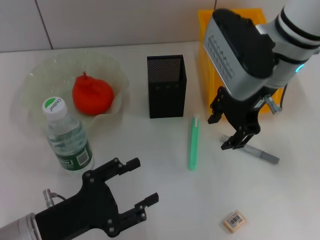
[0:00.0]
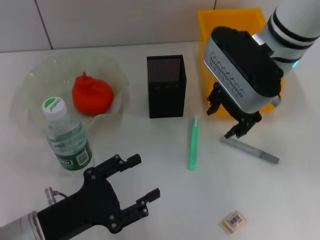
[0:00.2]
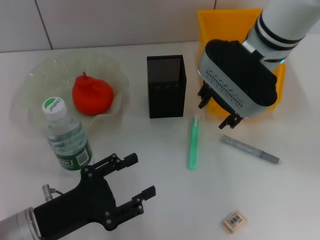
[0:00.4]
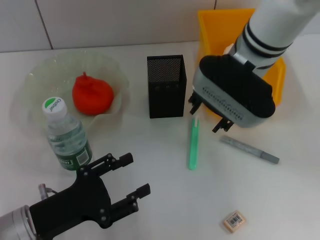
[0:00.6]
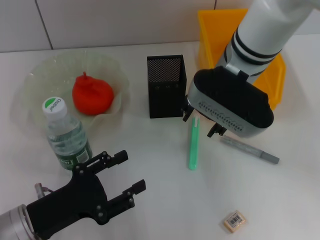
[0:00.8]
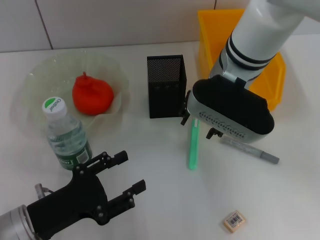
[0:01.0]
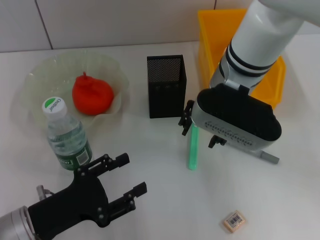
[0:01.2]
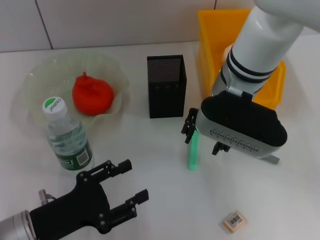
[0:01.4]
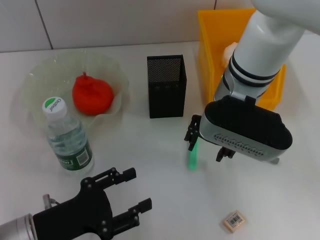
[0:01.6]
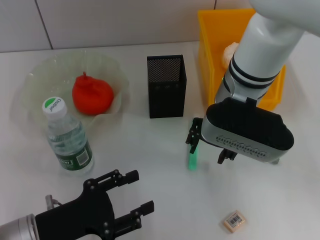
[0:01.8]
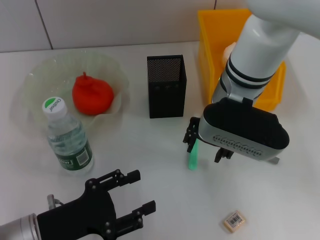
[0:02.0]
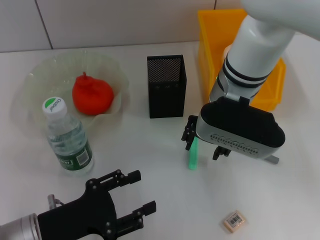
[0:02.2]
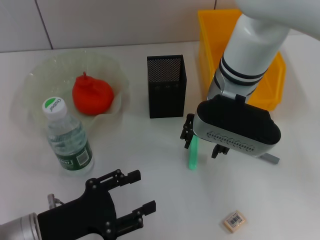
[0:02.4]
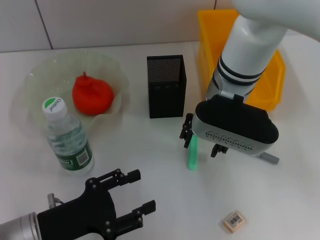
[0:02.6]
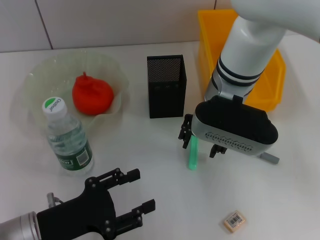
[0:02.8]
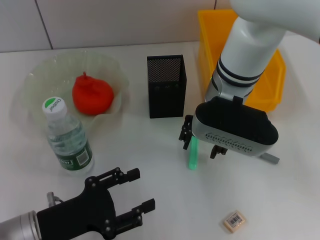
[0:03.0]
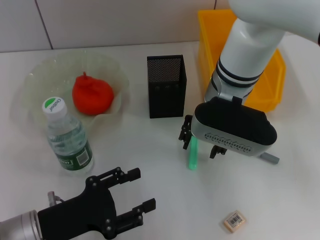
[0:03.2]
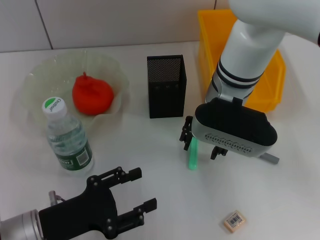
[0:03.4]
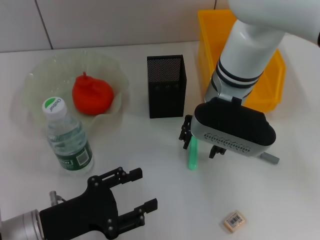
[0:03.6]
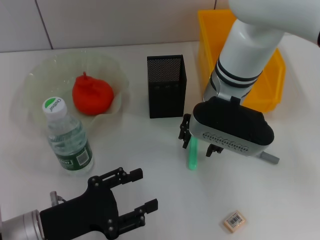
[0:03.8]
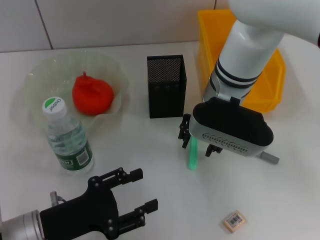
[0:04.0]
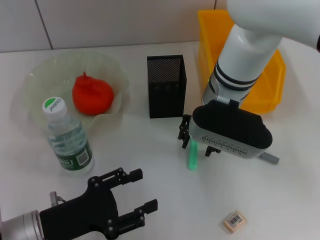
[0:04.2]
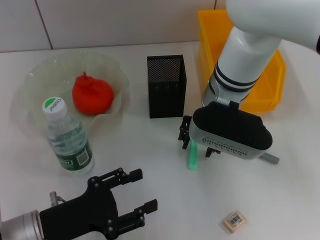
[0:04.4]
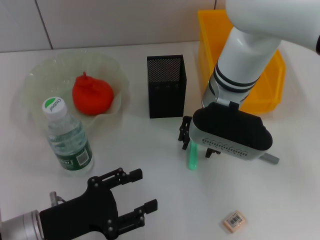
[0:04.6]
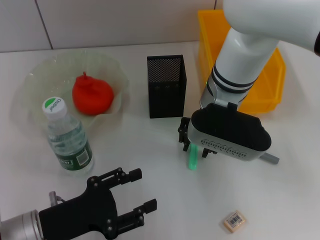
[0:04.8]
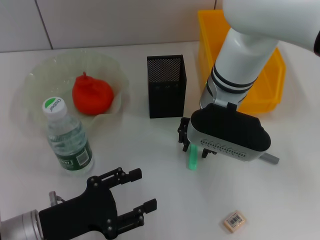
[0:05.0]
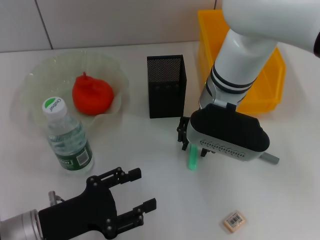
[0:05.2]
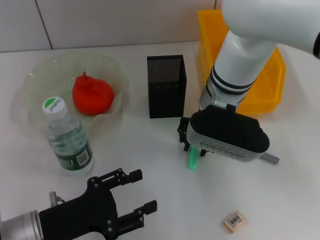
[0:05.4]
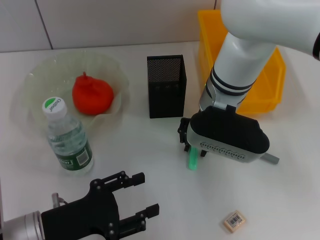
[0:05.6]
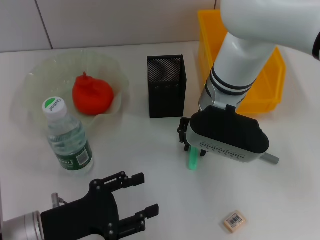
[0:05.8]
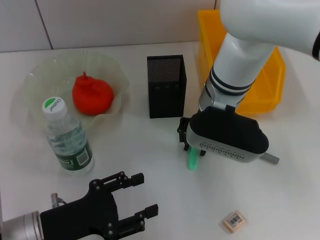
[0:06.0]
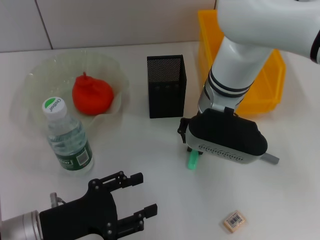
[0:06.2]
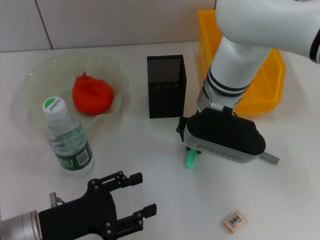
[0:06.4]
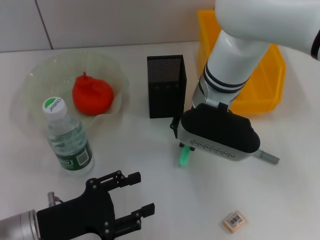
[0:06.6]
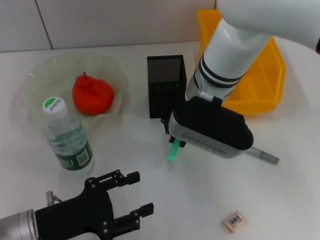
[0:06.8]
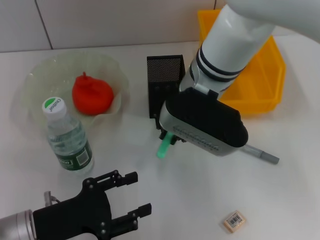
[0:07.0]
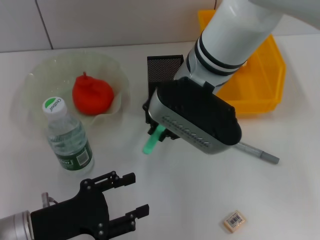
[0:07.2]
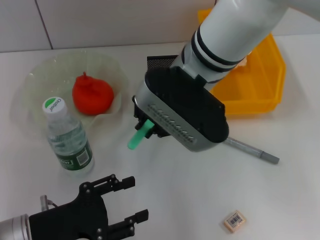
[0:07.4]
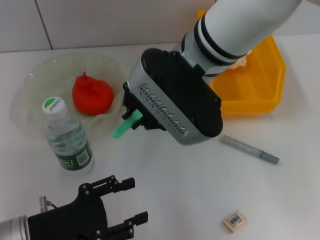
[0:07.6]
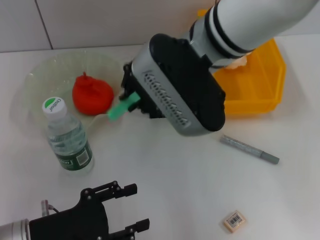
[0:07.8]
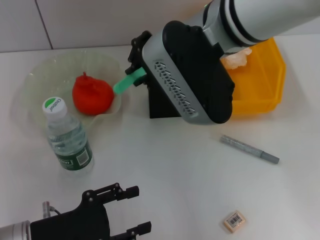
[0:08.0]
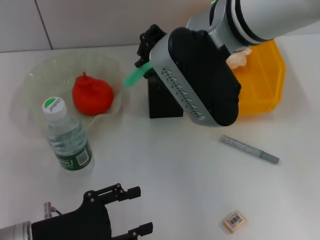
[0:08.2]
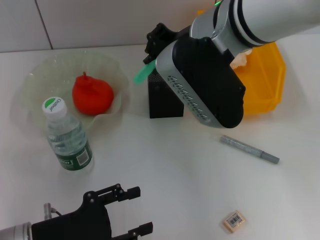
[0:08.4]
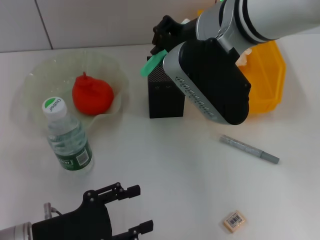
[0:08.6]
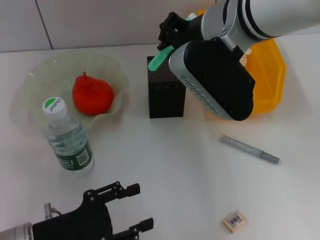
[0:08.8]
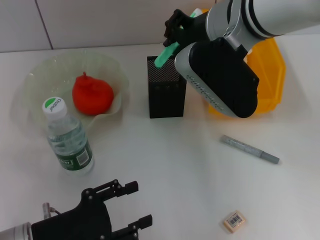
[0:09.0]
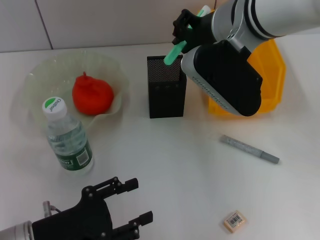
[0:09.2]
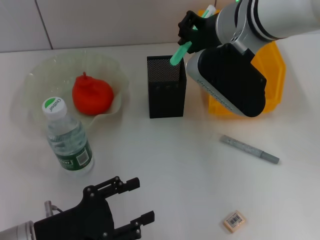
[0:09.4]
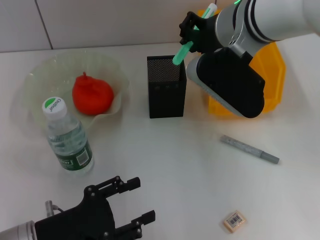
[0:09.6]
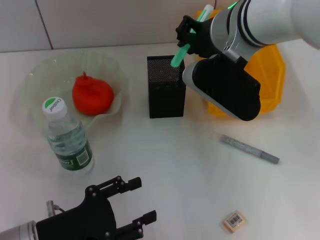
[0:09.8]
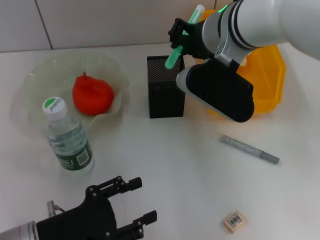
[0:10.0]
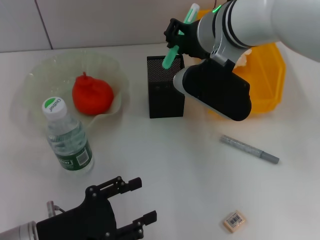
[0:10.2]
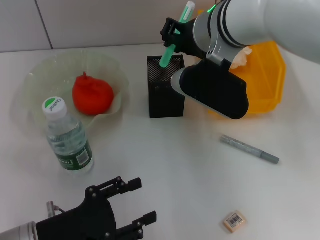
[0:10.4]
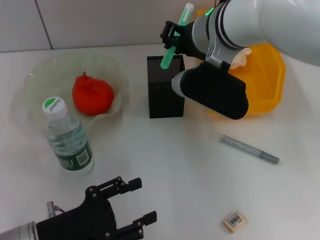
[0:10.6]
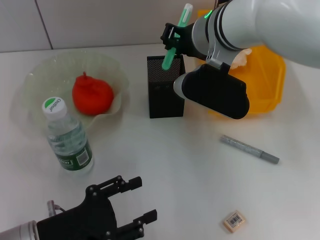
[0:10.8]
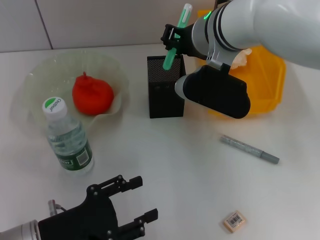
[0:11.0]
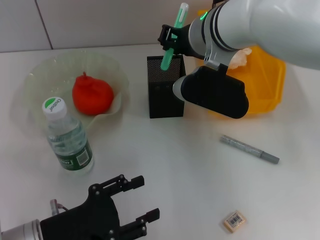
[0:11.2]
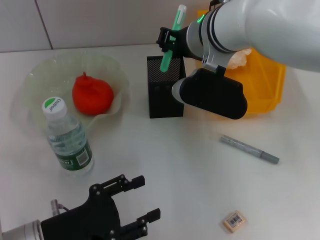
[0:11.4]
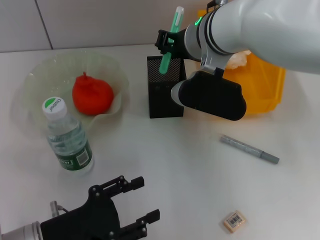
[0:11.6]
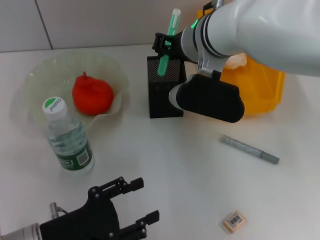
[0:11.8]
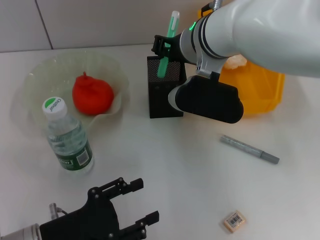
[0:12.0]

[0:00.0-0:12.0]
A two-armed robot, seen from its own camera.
Step, 0:00.0 to 0:06.2: Grab the blue utility knife with the right hand.
0:00.0 to 0:01.6: The right gripper moves approximately 5 cm.
0:01.6 to 0:03.0: The grippers move only a little.
0:03.0 to 0:04.4: Both grippers stay about where they are.
0:04.4 to 0:06.0: The two grippers keep their place.
0:06.0 to 0:07.6: The right gripper goes approximately 10 cm upward.
0:07.6 to 0:09.0: The right gripper moves about 5 cm.
0:09.0 to 0:10.4: The grippers stay close to where they were, moving slightly.
0:10.4 to 0:12.0: The grippers make only small movements.

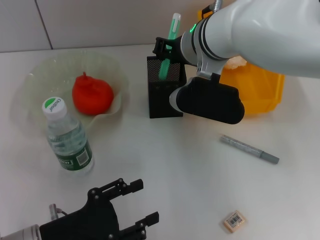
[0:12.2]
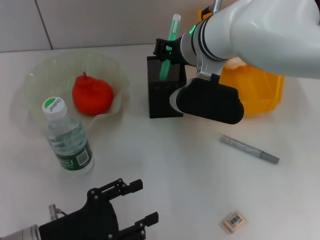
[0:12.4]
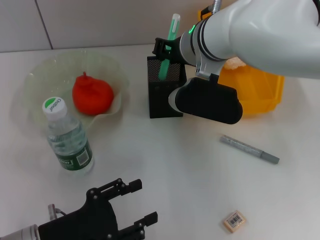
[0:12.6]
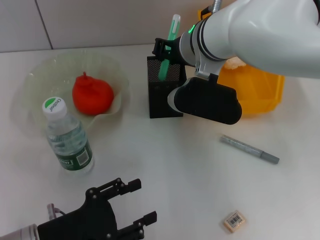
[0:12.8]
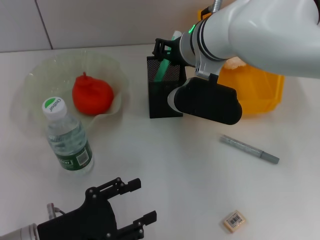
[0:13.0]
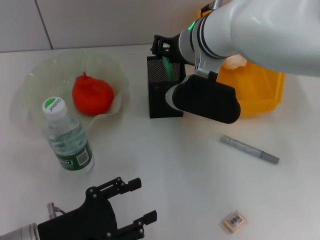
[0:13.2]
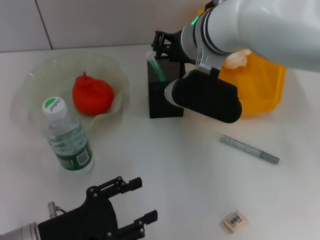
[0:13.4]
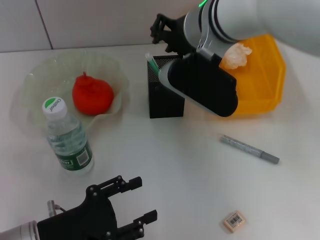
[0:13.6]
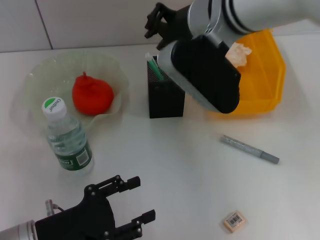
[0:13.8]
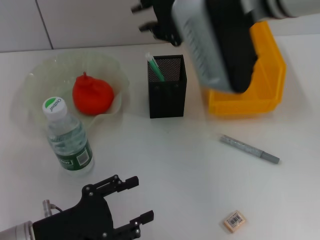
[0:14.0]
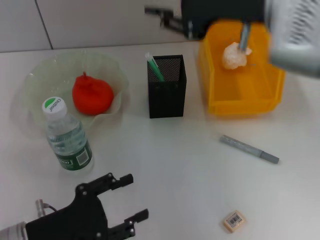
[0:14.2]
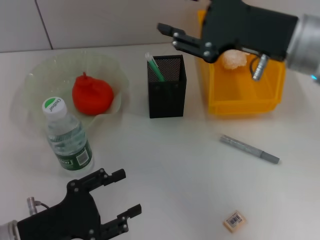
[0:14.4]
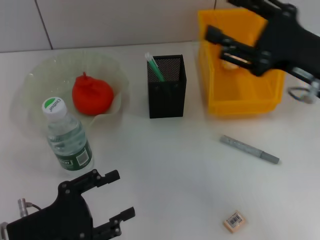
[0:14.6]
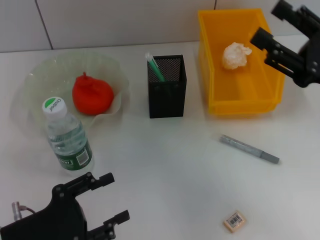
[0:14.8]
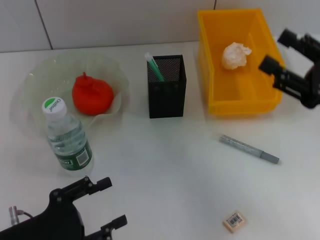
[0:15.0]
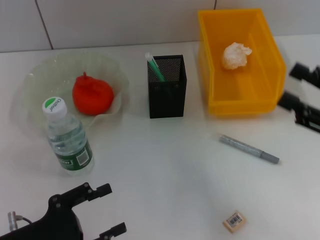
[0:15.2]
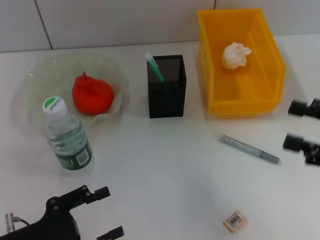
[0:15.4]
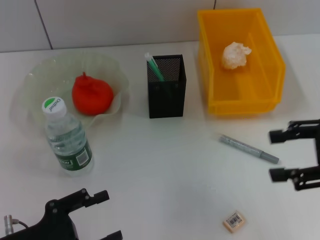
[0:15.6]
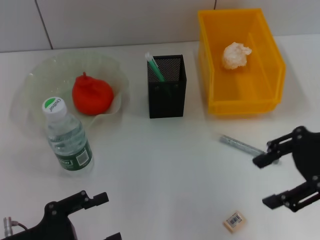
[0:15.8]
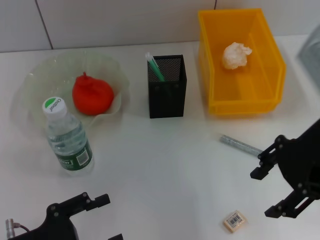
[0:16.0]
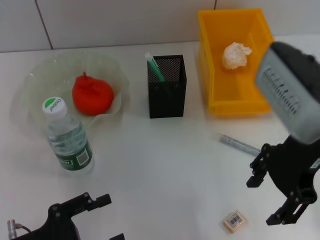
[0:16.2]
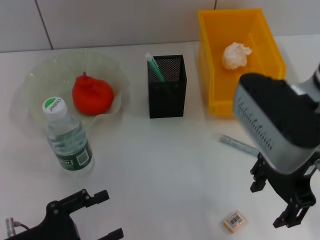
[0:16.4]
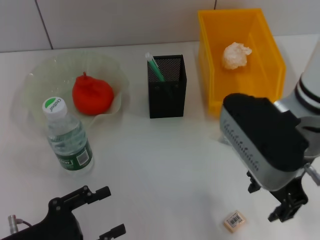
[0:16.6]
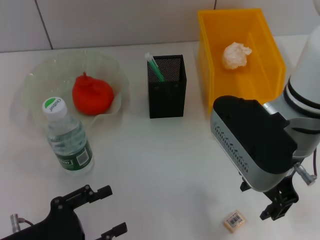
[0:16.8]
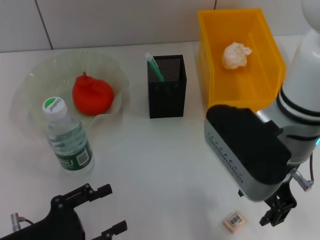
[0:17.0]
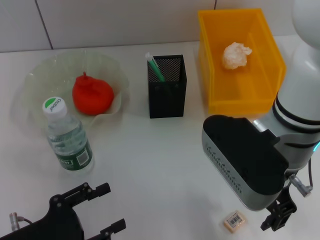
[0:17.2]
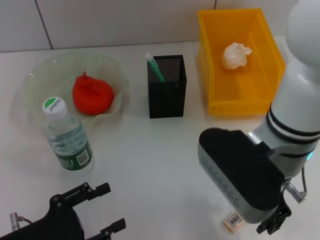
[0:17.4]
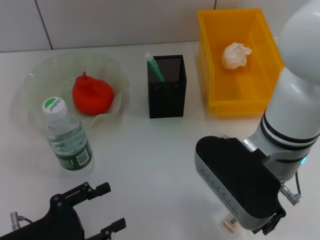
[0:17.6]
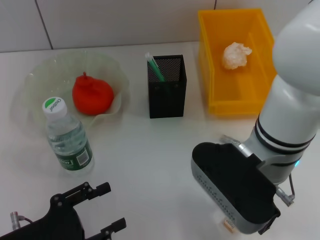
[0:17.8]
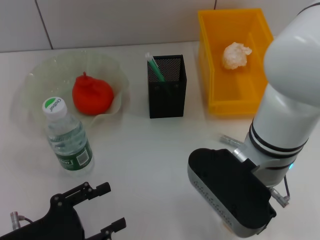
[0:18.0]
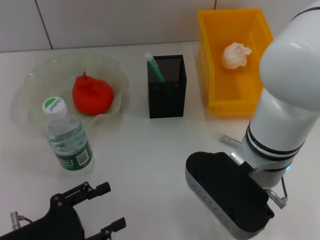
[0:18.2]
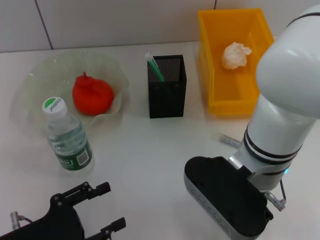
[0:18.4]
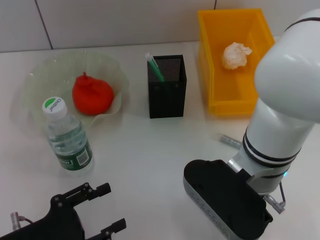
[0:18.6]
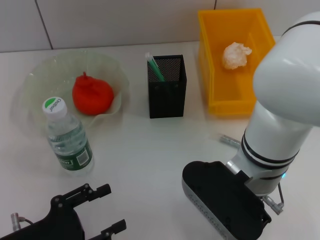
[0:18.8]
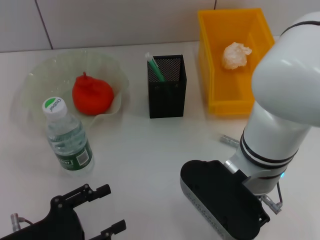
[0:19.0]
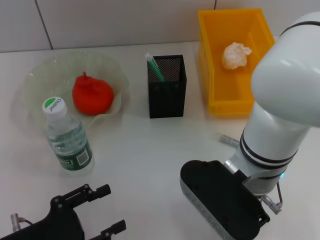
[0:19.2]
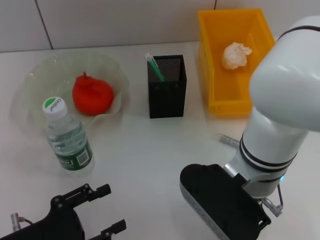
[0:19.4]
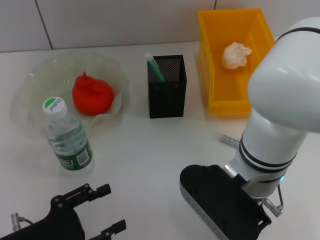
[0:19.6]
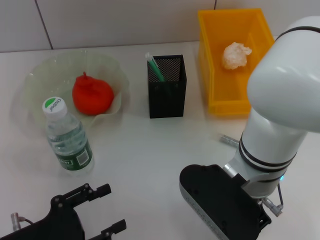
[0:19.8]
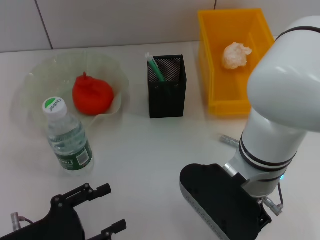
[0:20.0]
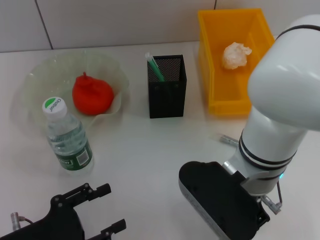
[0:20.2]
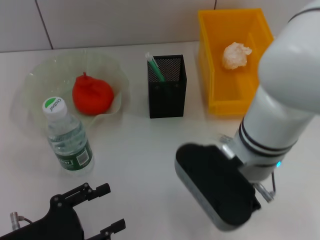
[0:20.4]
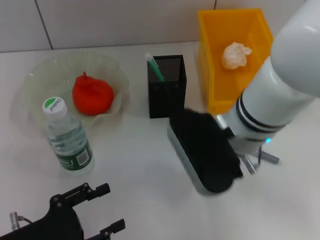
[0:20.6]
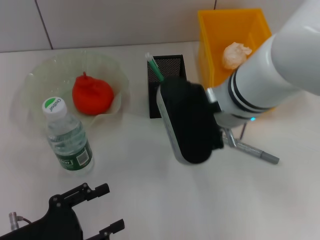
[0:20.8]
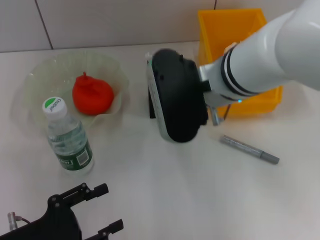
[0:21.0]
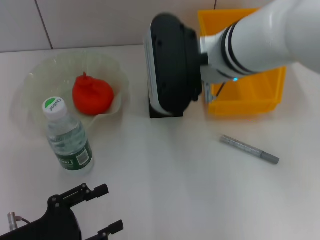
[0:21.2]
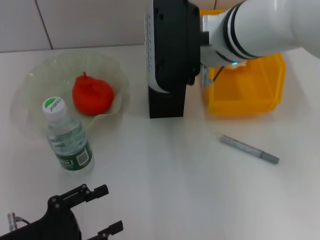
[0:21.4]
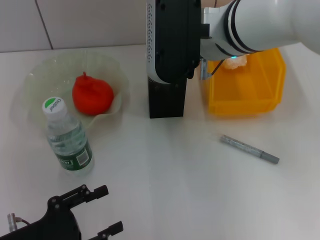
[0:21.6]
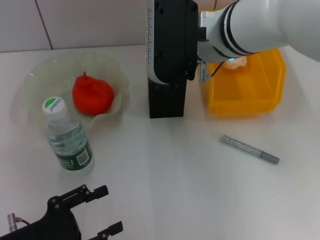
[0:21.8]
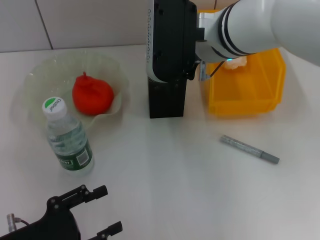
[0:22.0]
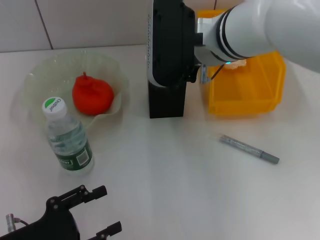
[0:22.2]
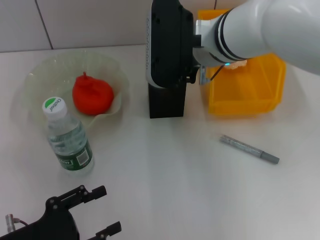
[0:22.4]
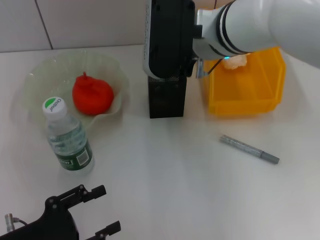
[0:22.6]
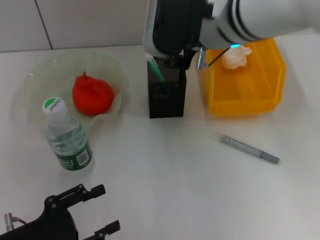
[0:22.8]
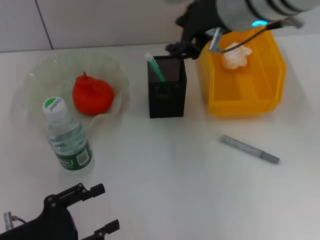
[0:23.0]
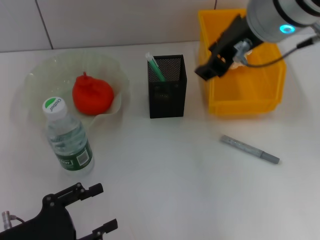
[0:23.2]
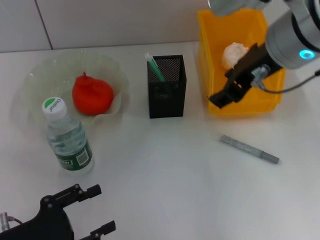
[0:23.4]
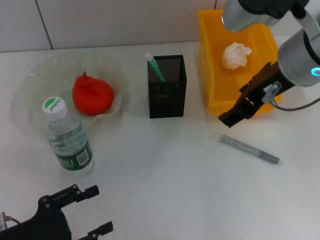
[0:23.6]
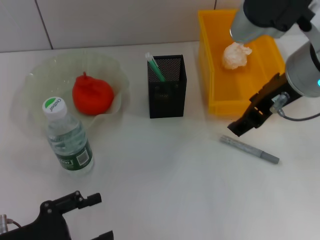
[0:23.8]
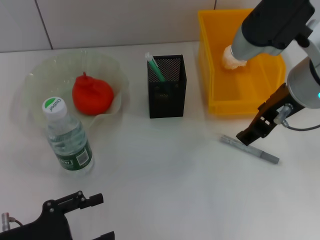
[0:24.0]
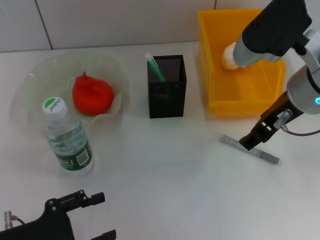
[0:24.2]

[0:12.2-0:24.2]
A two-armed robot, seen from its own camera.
Step, 0:13.4 to 0:20.0: Grab the eraser with the right hand.
Step, 0:20.2 to 0:22.8: Put the eraser into the pen holder with the right hand.
0:12.2 to 0:13.8: The right gripper shifts about 5 cm upward.
0:13.8 to 0:15.2: The right gripper shifts roughly 30 cm to the right, backward and downward, and opens its fingers.
0:15.2 to 0:16.6: The right gripper moves to the left and forward, approximately 20 cm.
0:16.6 to 0:18.2: The right gripper shifts by some 5 cm.
0:18.2 to 0:19.8: The right gripper closes.
0:19.8 to 0:21.2: The right gripper travels upward and forward by approximately 10 cm.
0:21.2 to 0:22.6: The grippers stay close to where they were, moving slightly.
0:22.6 to 0:24.2: The right gripper heads to the right and backward, covering approximately 10 cm, and opens up.
